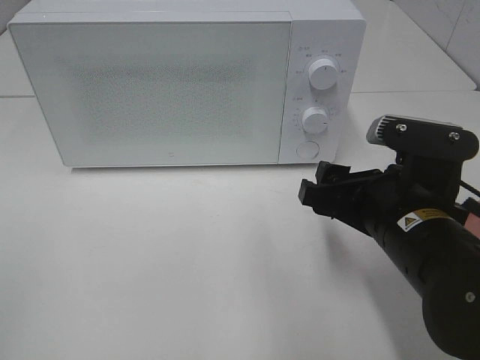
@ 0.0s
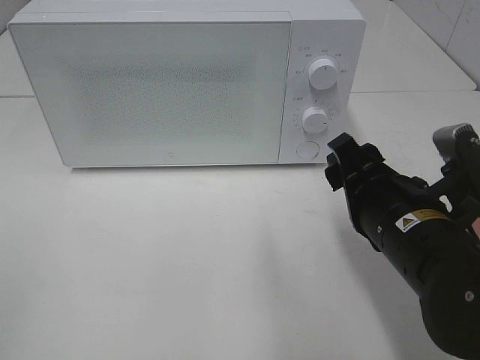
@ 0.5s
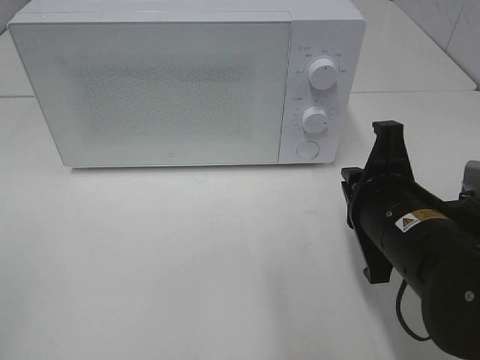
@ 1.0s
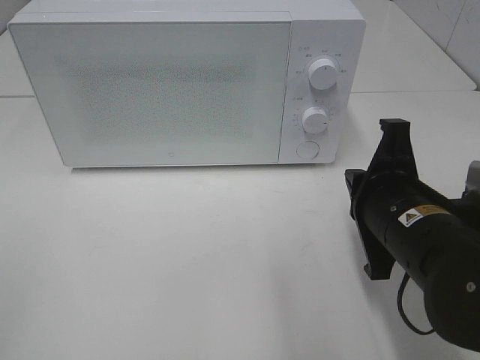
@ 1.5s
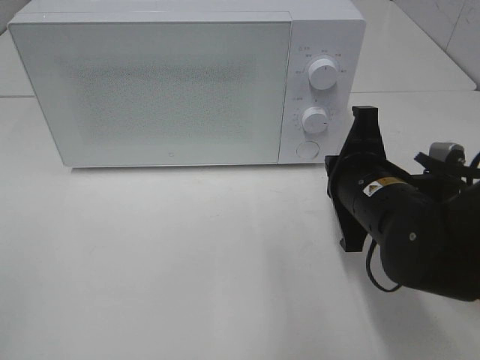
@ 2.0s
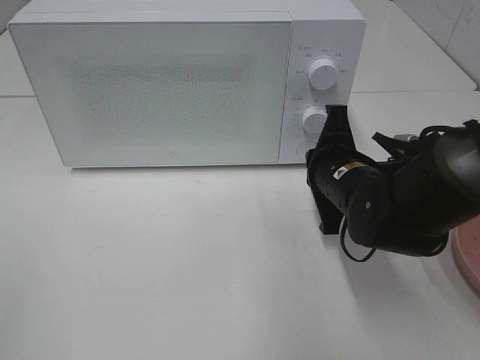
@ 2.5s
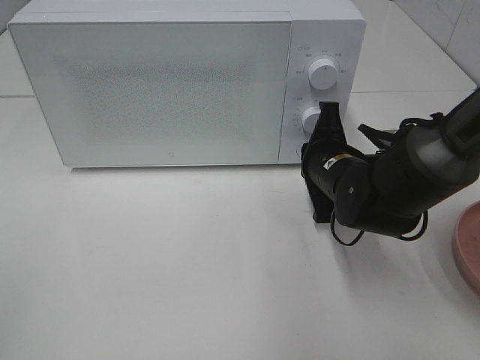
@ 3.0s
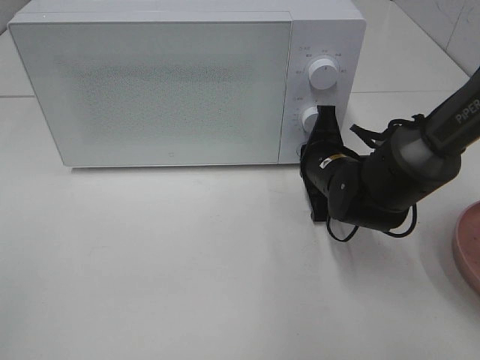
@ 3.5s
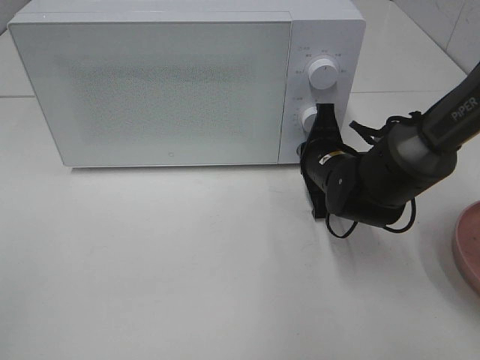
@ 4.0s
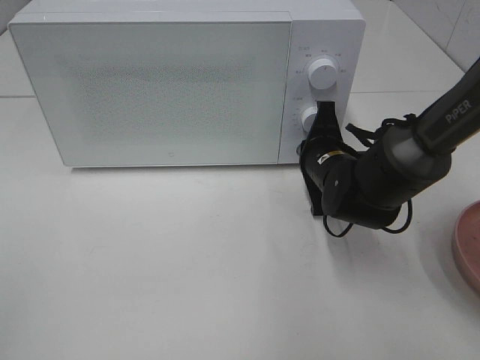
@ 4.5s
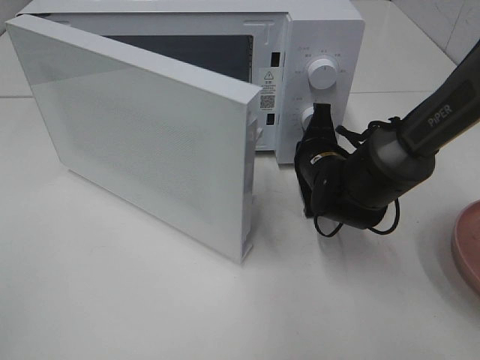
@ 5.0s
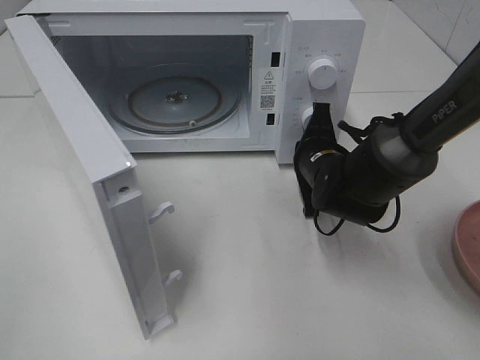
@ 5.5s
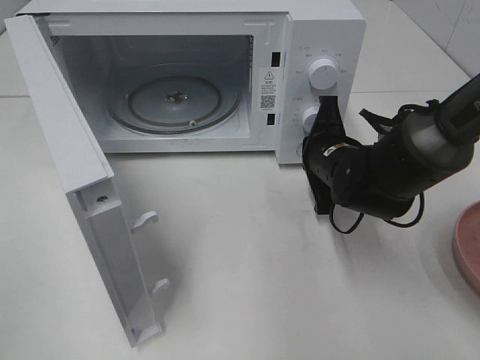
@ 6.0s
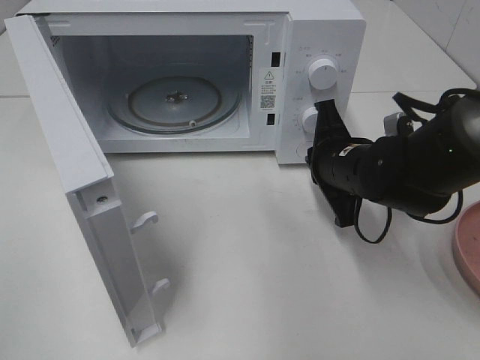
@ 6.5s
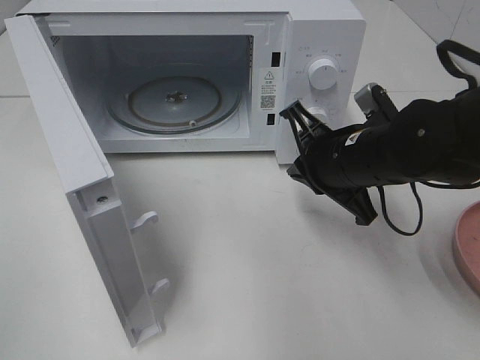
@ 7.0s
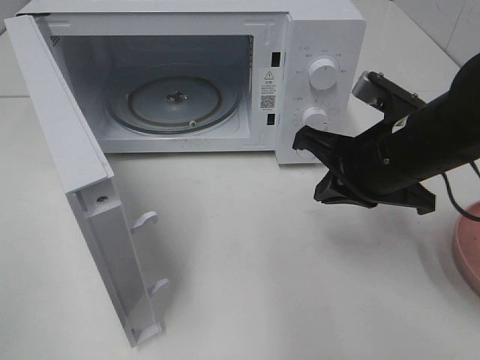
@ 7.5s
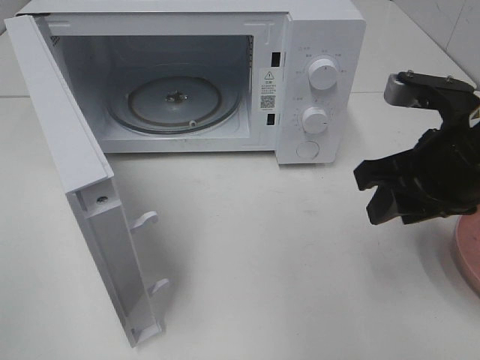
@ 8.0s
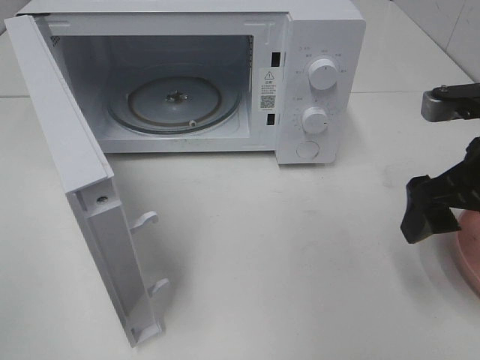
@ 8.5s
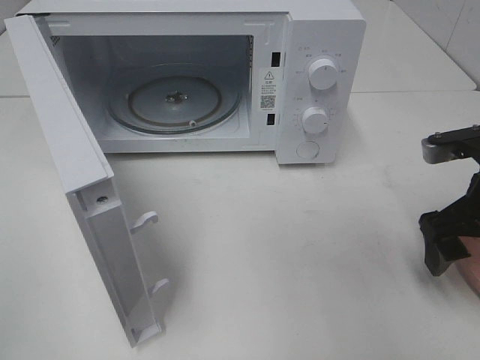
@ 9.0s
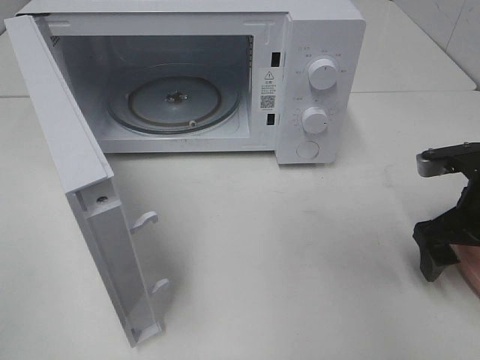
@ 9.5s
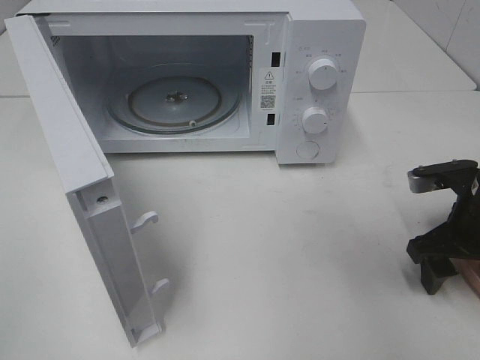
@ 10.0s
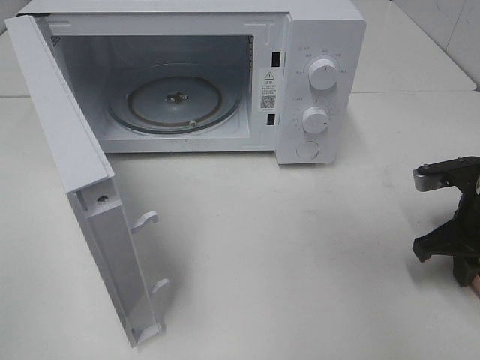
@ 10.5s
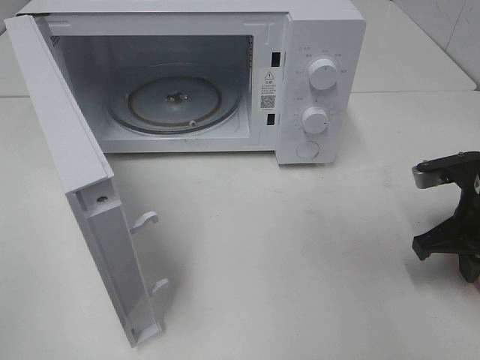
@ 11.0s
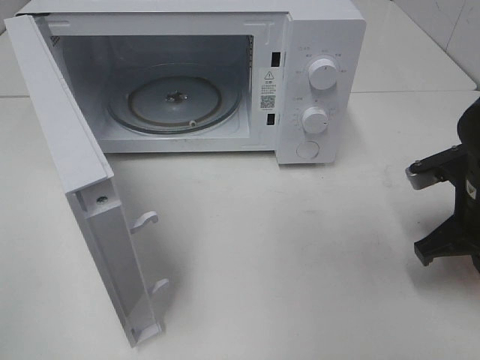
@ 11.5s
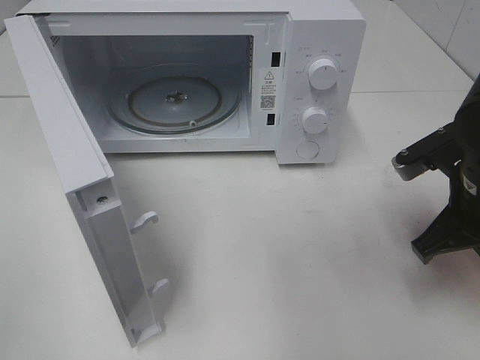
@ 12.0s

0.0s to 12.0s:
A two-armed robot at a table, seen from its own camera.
Task of the whole recording: Heat the burger.
Step, 0.0s to 6.0s: Right hand: press the switch.
Step, 6.5s to 11.0s: Right hand: grab the plate with the hamburger.
0.0s to 2.0s: The right gripper moves forward, about 5 cm, and closes its fingers.
2.0s to 4.0s: The right gripper is displaced forward and downward by approximately 10 cm.
6.0s to 8.0s: The right gripper goes roughly 20 cm upward, backward and to the right, and opens.
8.0s to 10.0s: The right gripper moves downward and to the right, roughly 15 cm.
10.0s to 12.0s: The right gripper moves upward, some 5 cm, and closes.

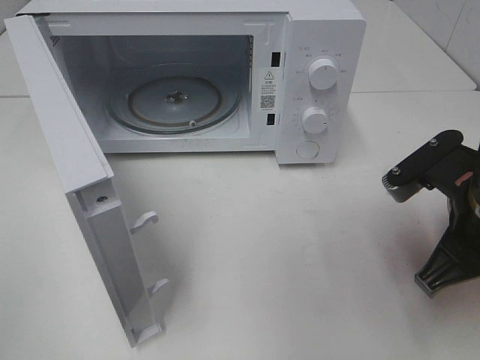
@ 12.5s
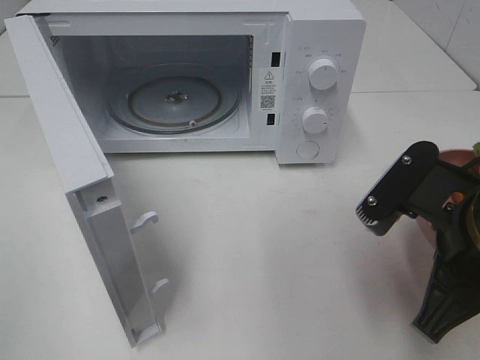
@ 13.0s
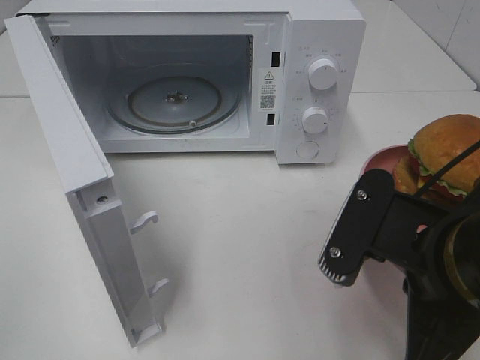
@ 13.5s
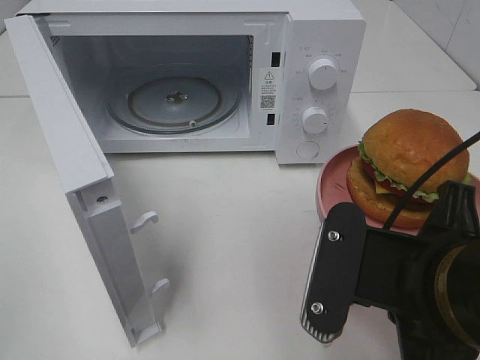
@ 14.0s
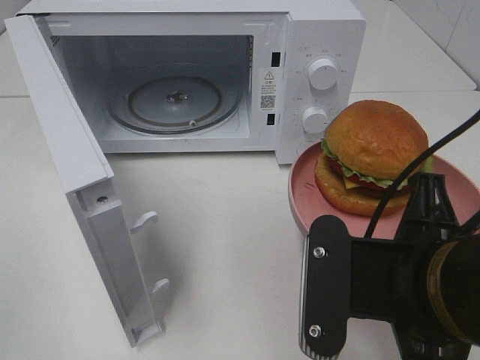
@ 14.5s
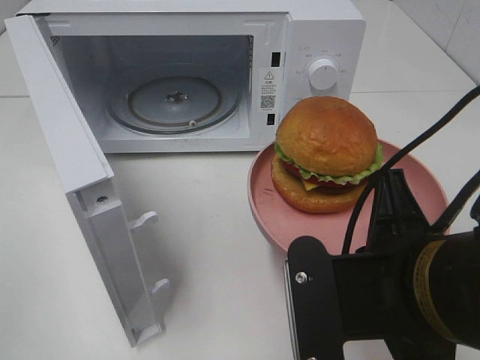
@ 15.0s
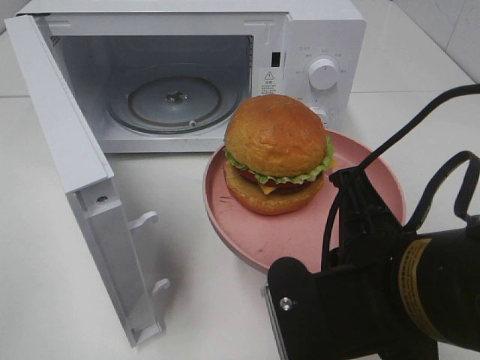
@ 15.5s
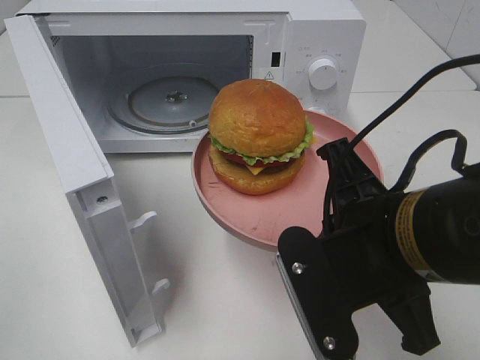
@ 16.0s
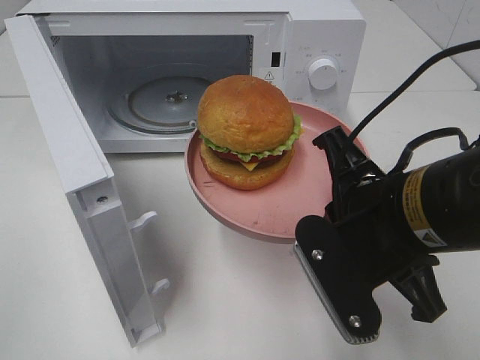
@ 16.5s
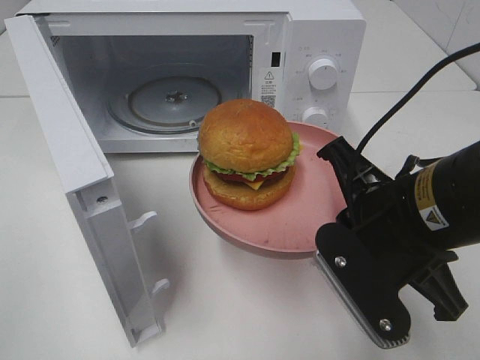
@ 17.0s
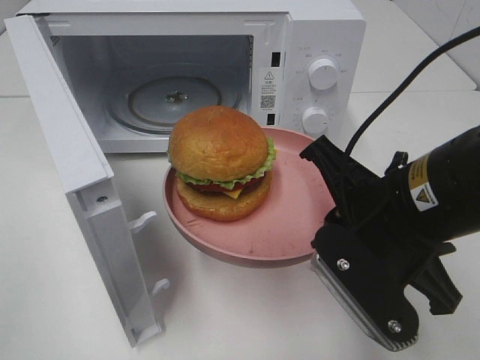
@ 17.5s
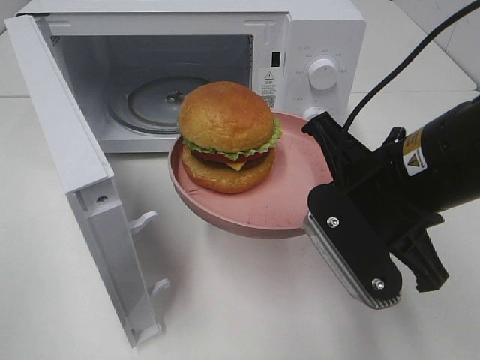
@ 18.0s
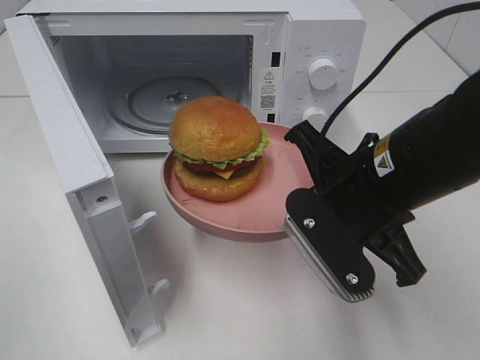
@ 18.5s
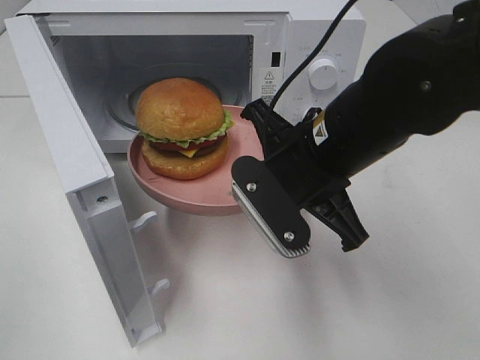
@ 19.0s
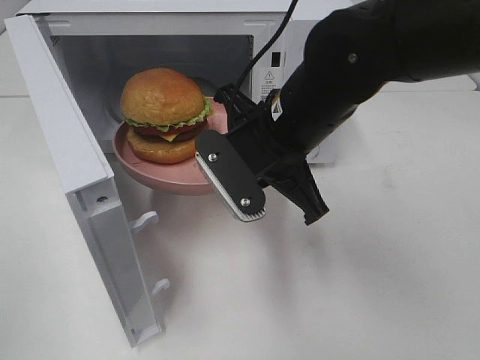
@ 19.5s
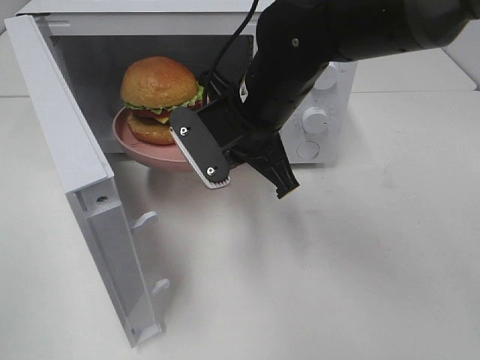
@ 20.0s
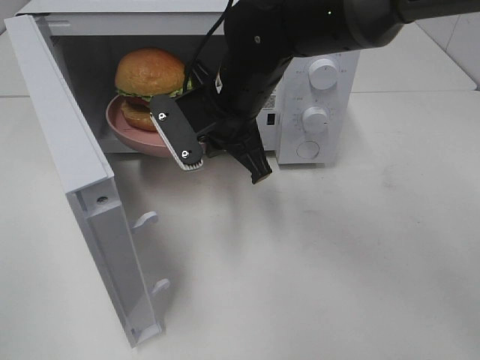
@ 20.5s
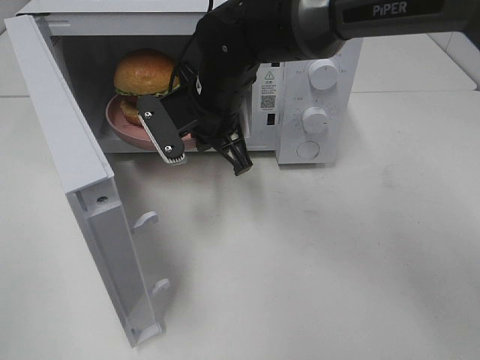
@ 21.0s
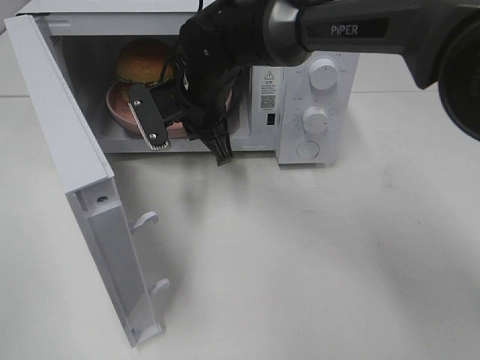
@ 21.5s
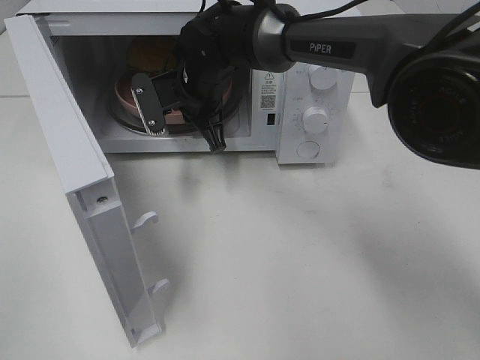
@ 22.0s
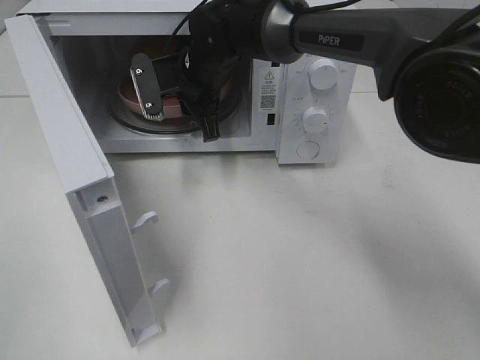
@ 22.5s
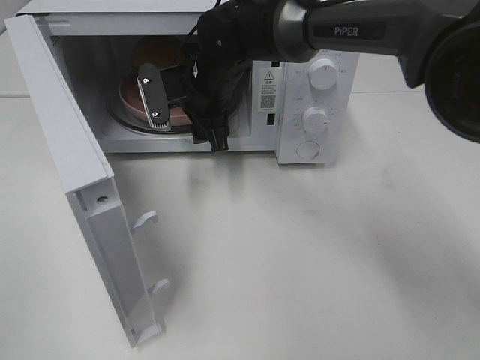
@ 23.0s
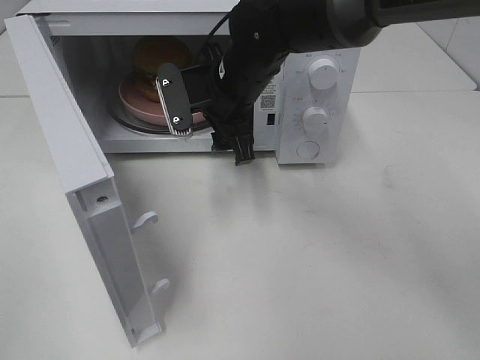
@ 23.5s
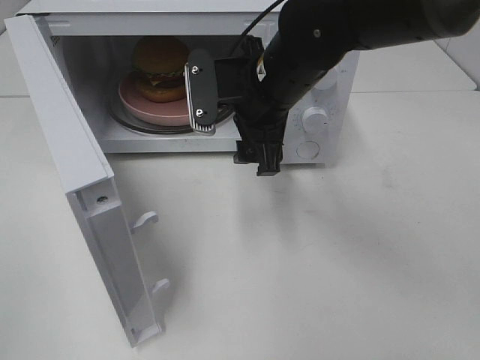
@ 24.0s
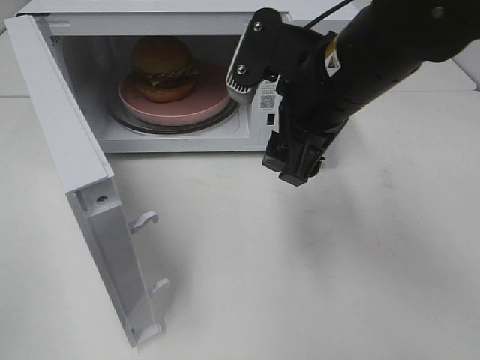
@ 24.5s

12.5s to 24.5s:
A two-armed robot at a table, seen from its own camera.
Task of the whole recording: Heat the burger.
Step, 12.5s to 22.5s: Right hand: place the plate in the microwave.
12.5s to 14.5s: The right gripper moves backward and to the left, roughly 10 cm.
14.5s to 16.5s: The right gripper heads forward, covering roughly 5 cm.
18.5s to 20.5s: The right gripper shifts some 20 cm forward and to the left.
20.5s to 22.5s: The right gripper shifts roughly 10 cm forward, and opens up.
22.5s to 24.5s: The right gripper moves backward, to the right and upward, approximately 25 cm, and opens up.

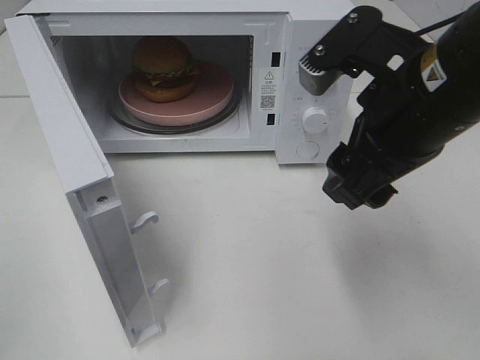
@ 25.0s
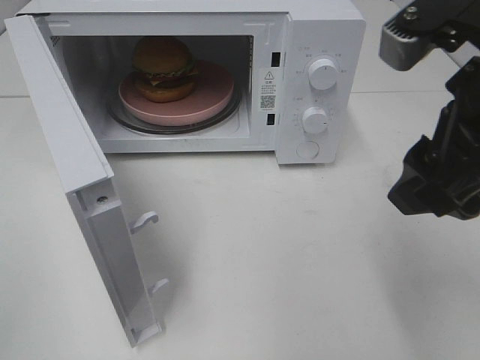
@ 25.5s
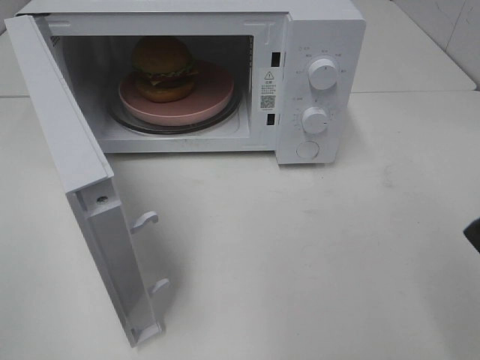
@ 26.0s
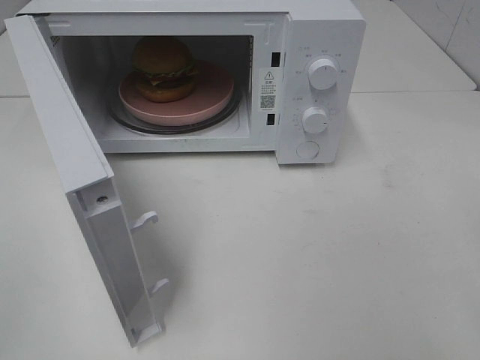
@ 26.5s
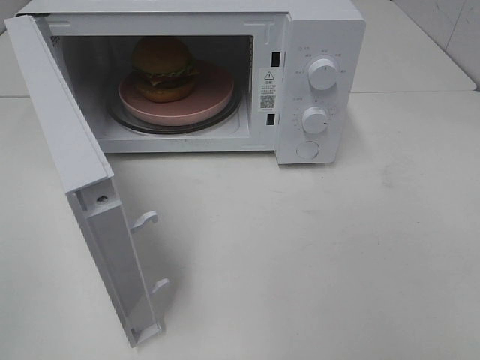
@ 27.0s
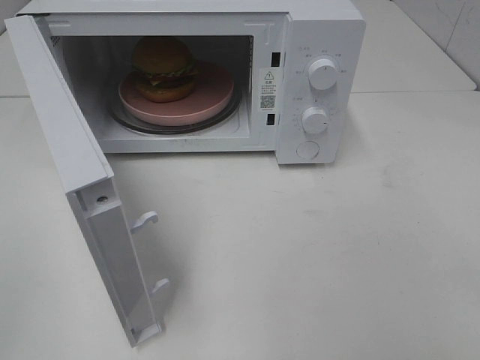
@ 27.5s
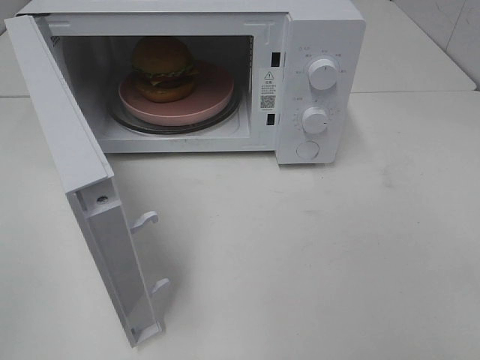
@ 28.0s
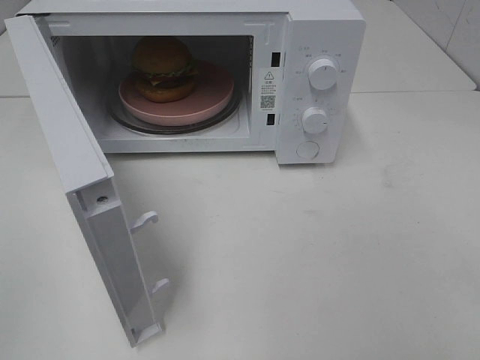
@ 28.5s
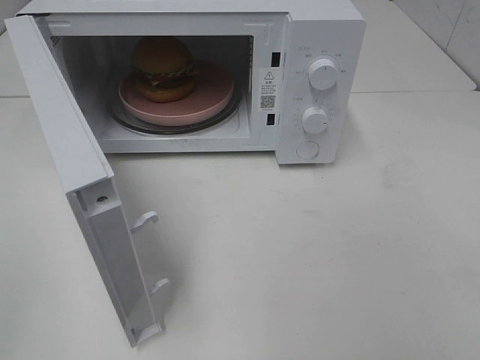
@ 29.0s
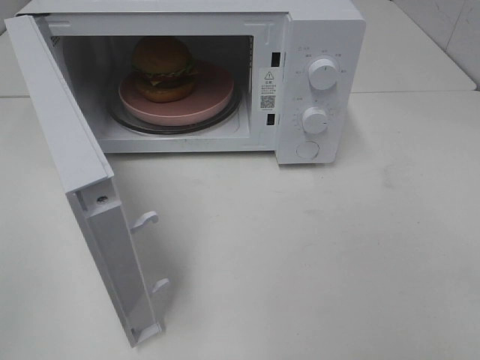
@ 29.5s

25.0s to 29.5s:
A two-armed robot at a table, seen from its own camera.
Task of the whole recording: Heat the burger.
25.0s to 27.0s: The right gripper moves backward and to the right, approximately 25 cm.
